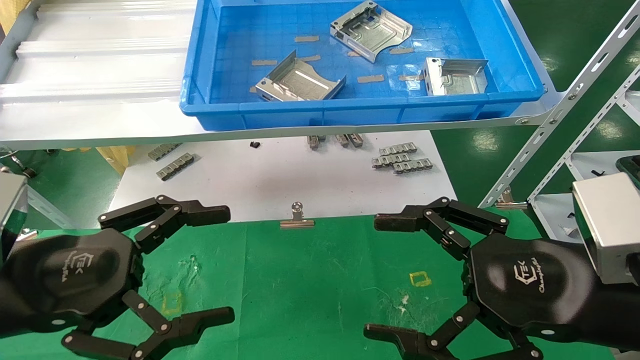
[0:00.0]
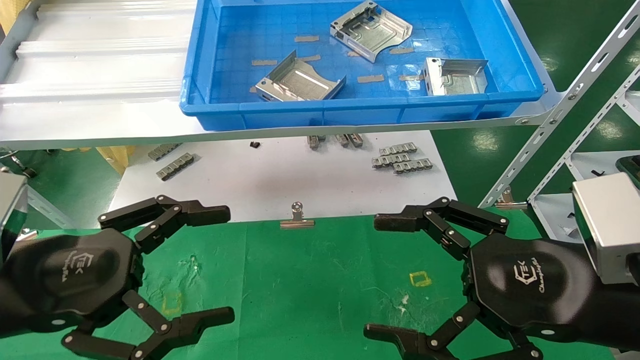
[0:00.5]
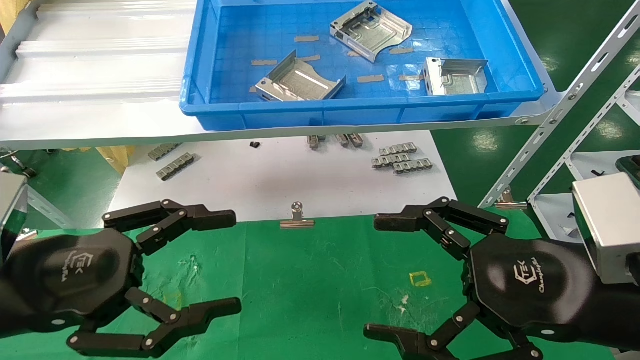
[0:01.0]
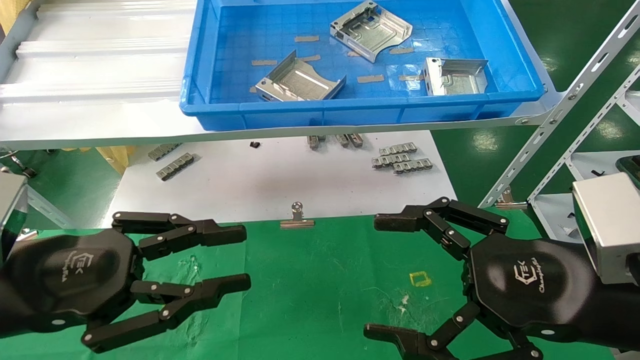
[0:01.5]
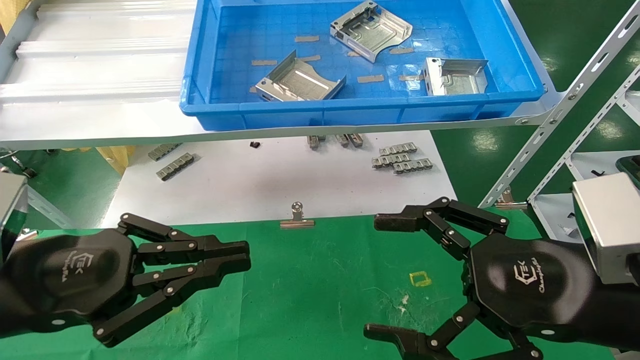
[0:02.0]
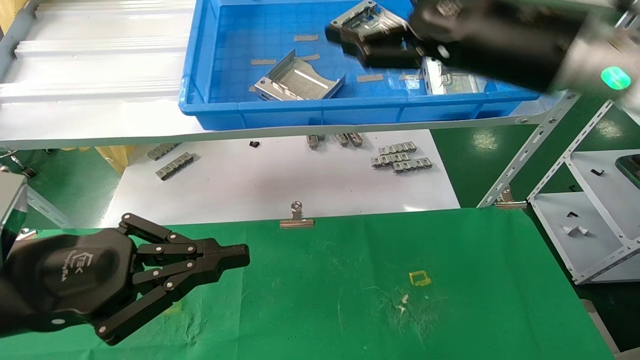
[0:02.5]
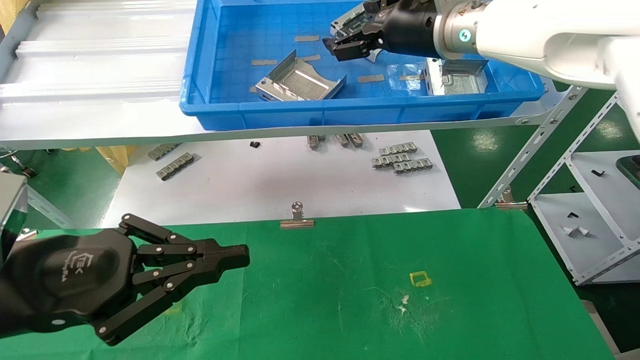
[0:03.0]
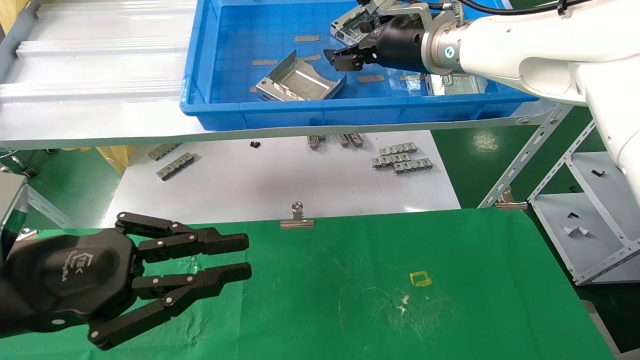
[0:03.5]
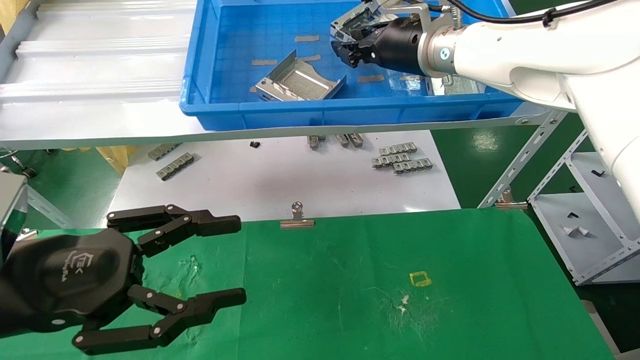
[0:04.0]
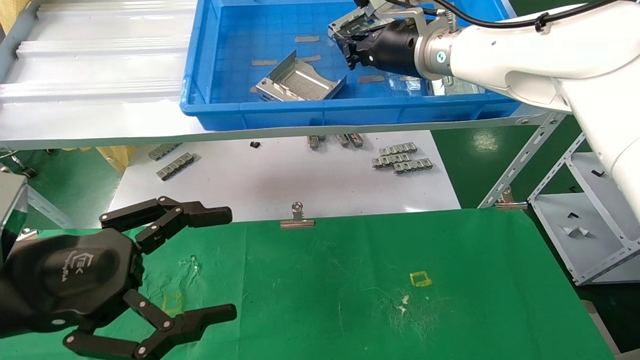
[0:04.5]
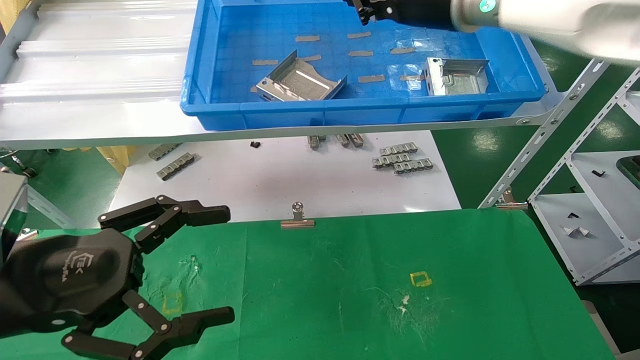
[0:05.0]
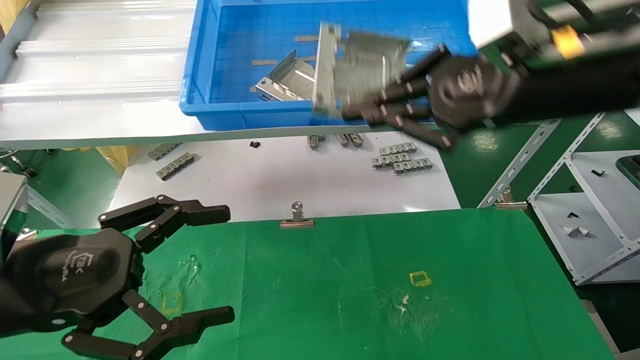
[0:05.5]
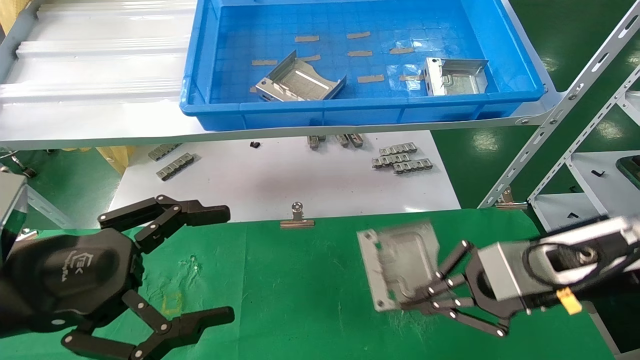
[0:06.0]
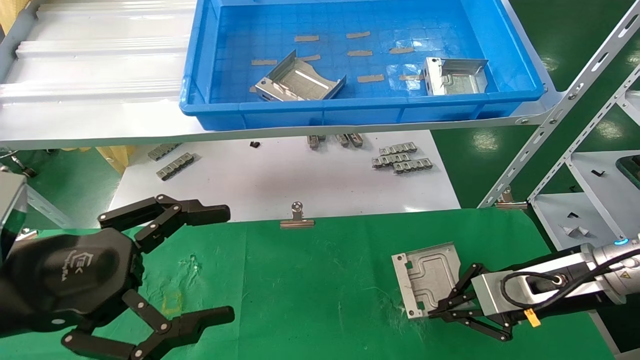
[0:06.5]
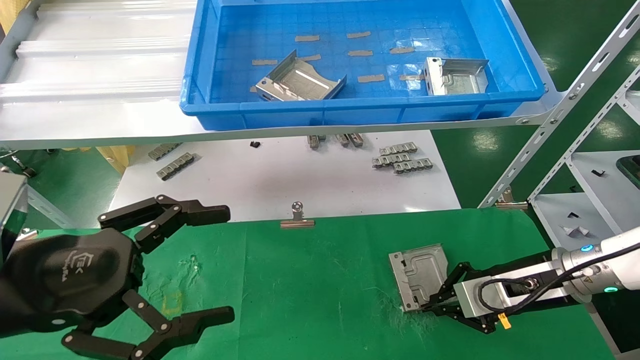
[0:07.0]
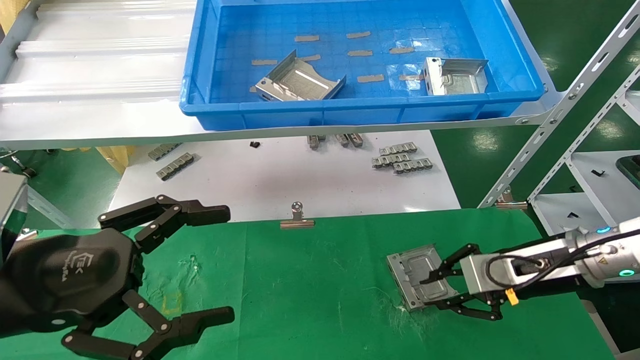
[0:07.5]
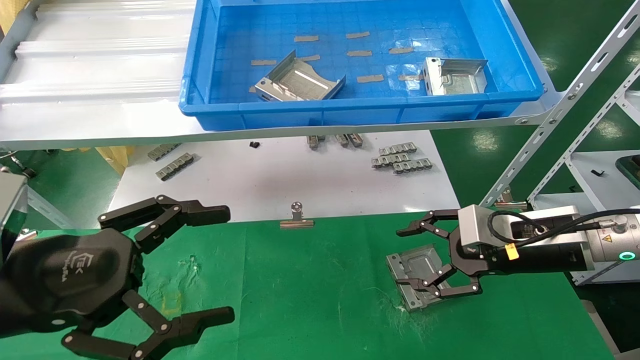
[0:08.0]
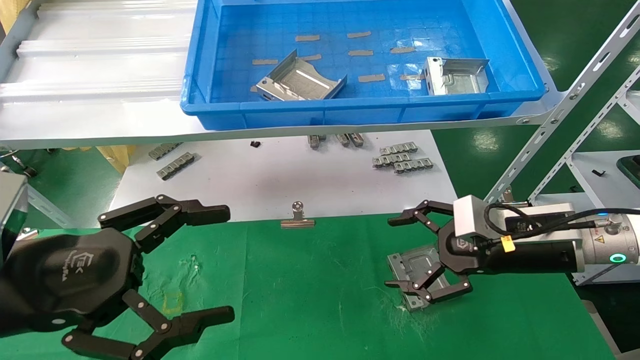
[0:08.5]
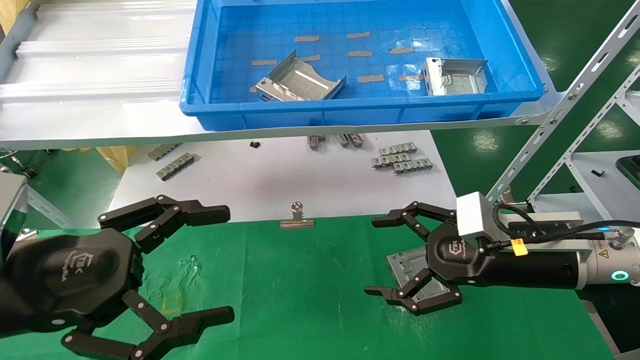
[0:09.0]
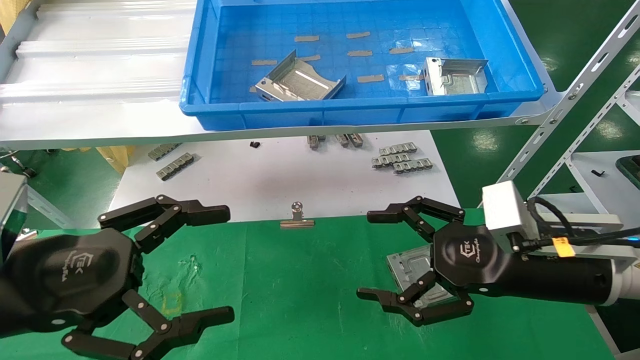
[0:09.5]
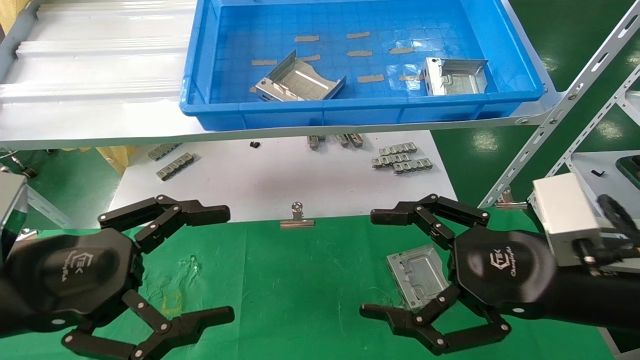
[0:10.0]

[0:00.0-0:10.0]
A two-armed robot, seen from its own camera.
Task of the whole recording: use the mechanical arm to pick up the parts and place them on the table.
Step, 0:01.5 to 0:05.5: Pick up the hard drive bracket from the feeding area.
Step, 0:06.0 to 0:08.0: Place the hard drive bracket into the box.
0:00.0 to 0:02.0: The left gripper closes its fingers.
0:02.0 to 0:04.0: The left gripper opens its fingers, while the right gripper heads forward, upward and to the left, covering about 30 cm, and closes its fingers.
0:04.0 to 0:06.0: The left gripper opens. Meanwhile the right gripper travels downward, backward and to the right by about 30 cm, and closes its fingers.
0:06.0 to 0:08.0: The right gripper shifts some 5 cm forward, and opens up.
0:08.0 to 0:10.0: The right gripper is displaced backward by roughly 10 cm, and opens its fingers.
